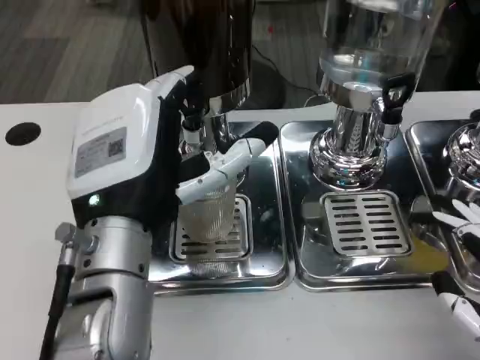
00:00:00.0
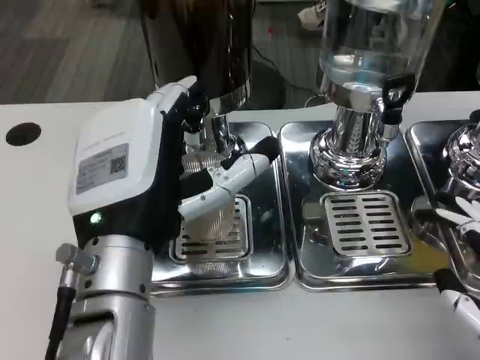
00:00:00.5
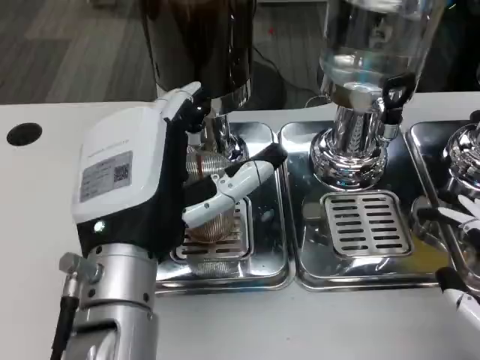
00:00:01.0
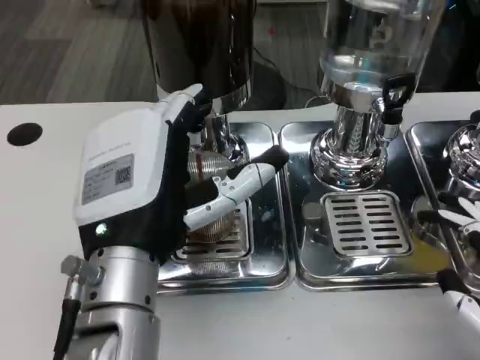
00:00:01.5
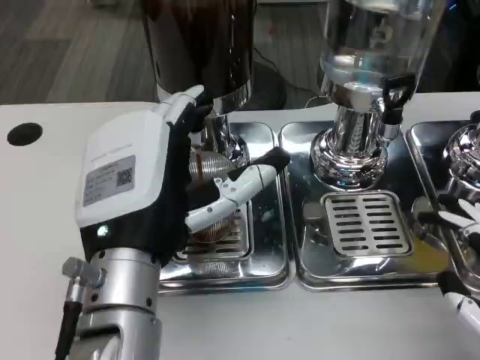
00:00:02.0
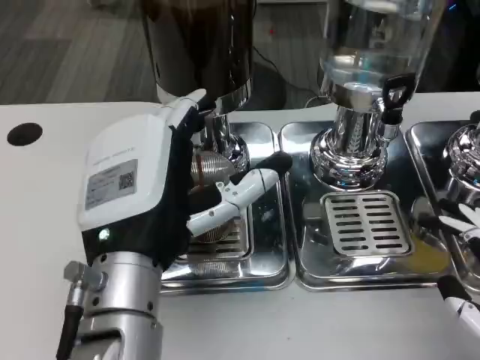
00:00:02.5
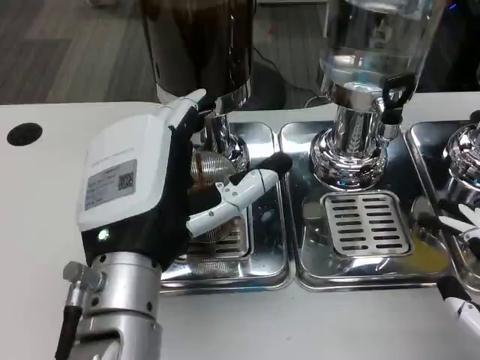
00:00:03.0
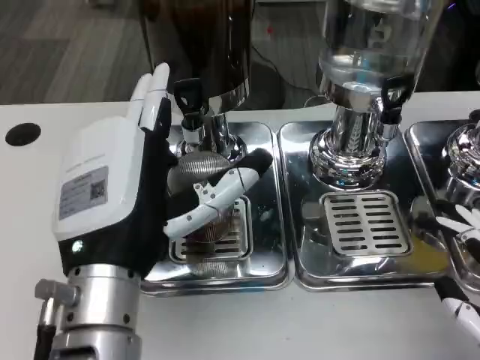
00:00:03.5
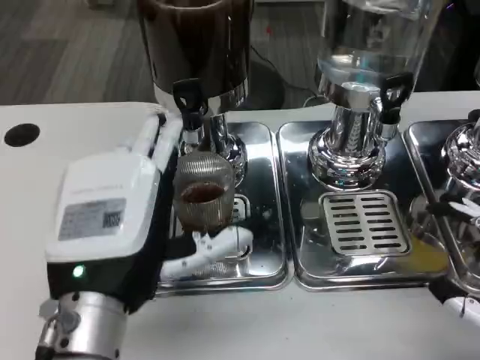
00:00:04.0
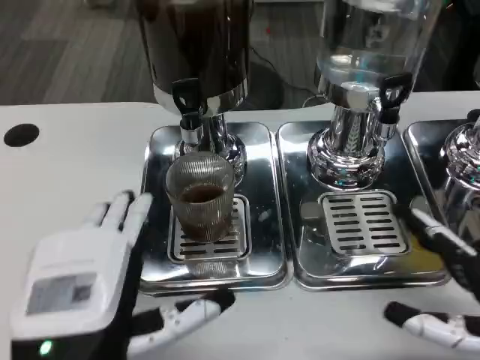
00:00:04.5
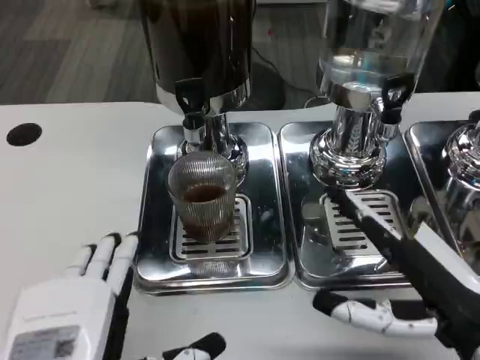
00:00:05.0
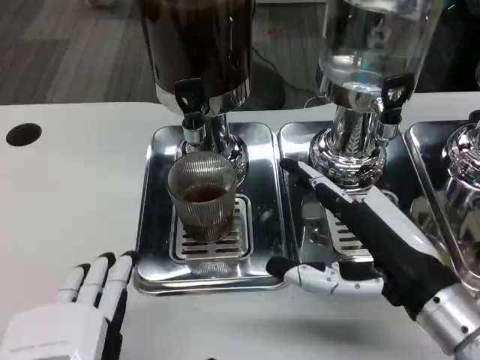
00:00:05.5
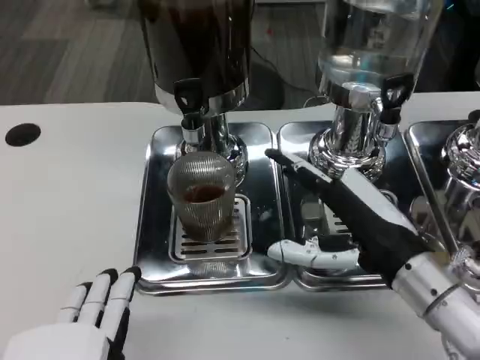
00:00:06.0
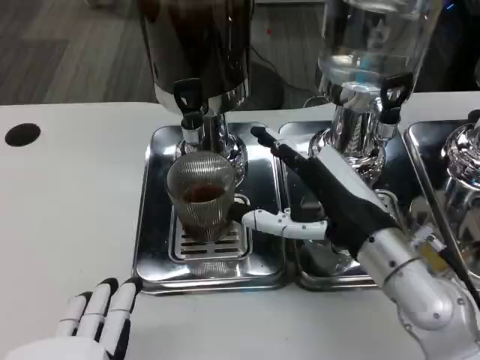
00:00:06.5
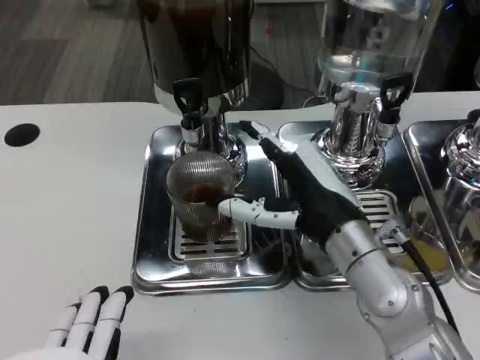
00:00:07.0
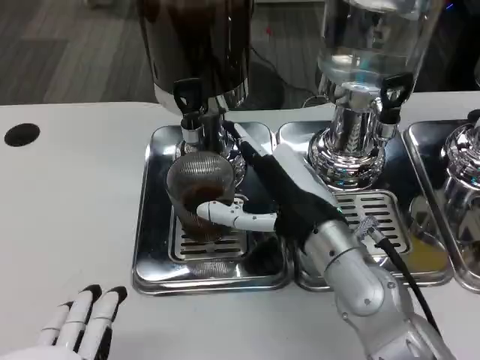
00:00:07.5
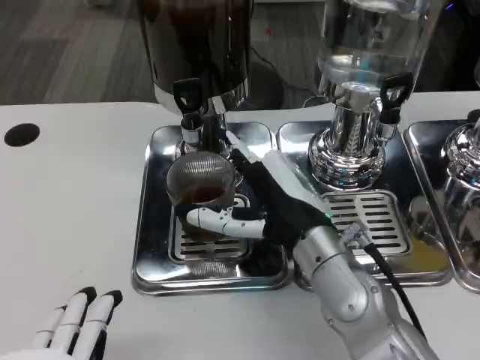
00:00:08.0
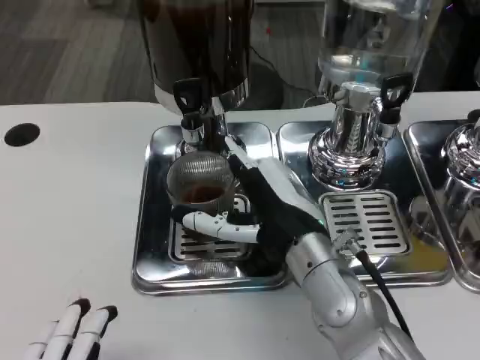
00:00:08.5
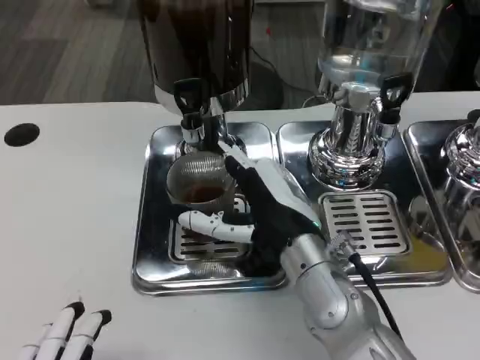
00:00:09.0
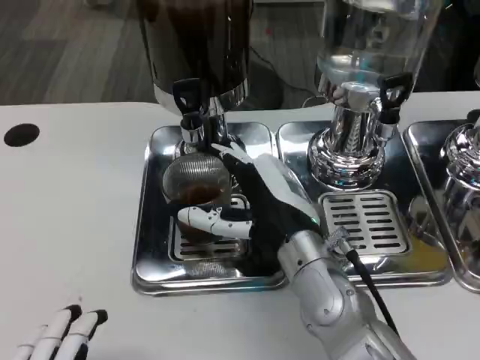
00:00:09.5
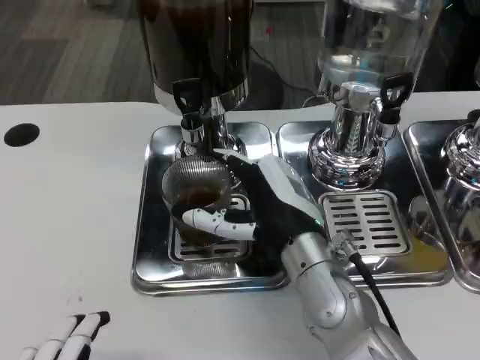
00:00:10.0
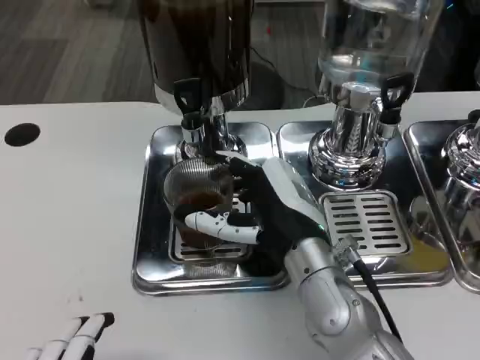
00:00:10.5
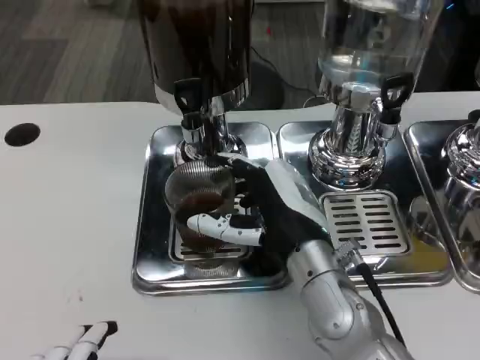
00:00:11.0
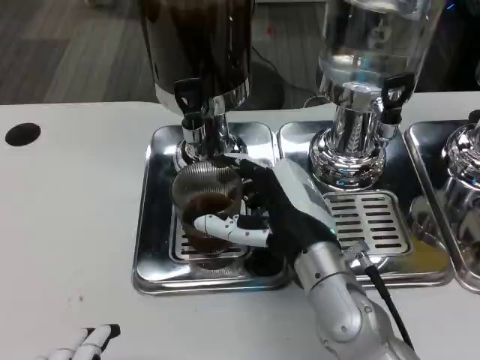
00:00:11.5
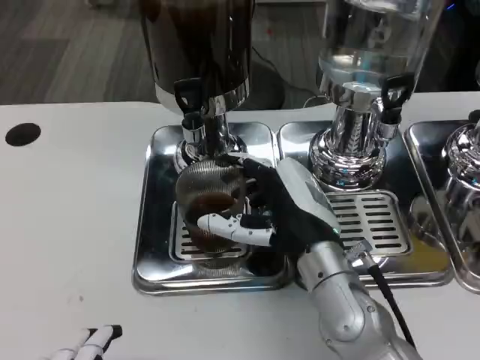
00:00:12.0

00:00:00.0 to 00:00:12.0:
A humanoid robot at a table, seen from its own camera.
Task of the whole recording: Grasp the cup under the faucet to collect the drink, then remove the cup.
00:00:04.0 to 00:00:06.0: The left hand shifts roughly 10 cm backward. Meanwhile the right hand moves to the left and forward, about 15 cm.
00:00:06.0 to 00:00:08.0: The right hand goes about 10 cm to the left.
00:00:08.0 to 00:00:12.0: The hands make only small movements.

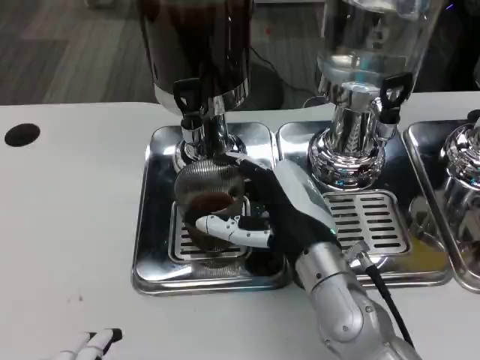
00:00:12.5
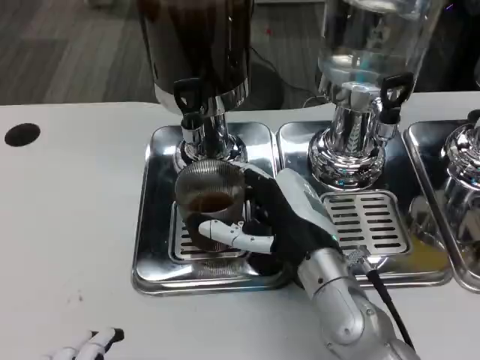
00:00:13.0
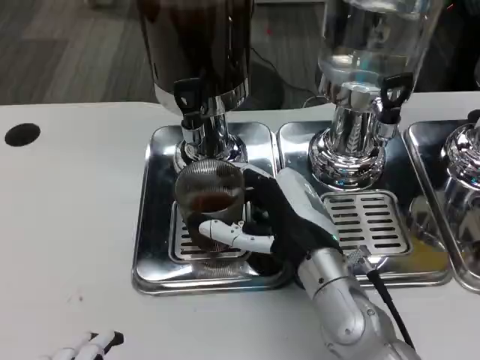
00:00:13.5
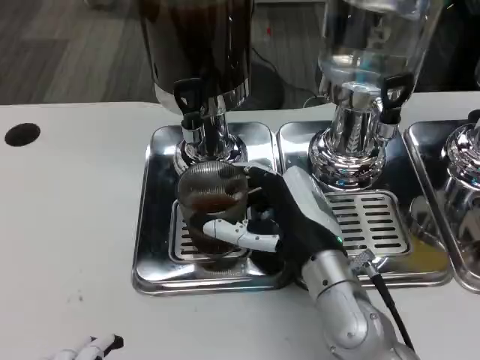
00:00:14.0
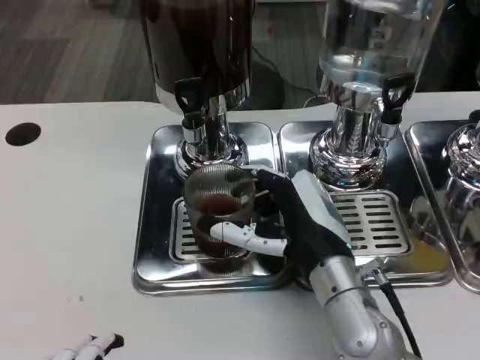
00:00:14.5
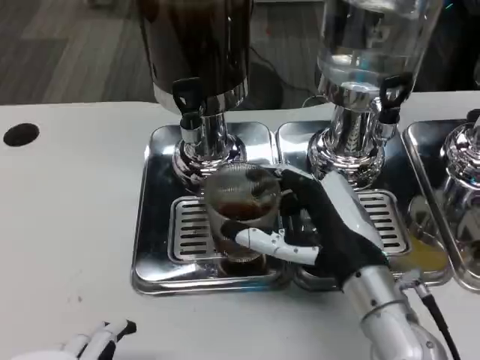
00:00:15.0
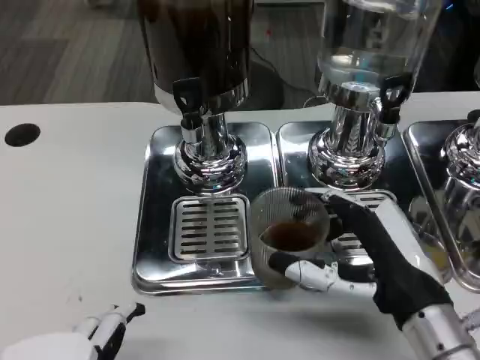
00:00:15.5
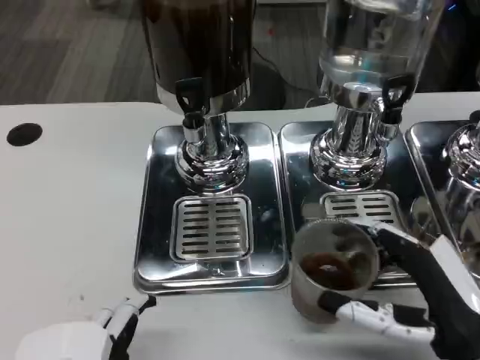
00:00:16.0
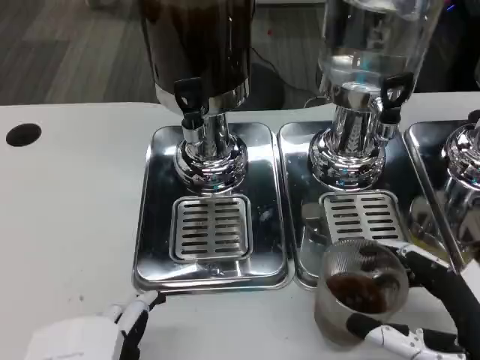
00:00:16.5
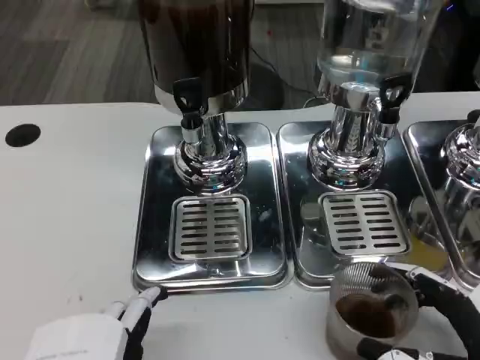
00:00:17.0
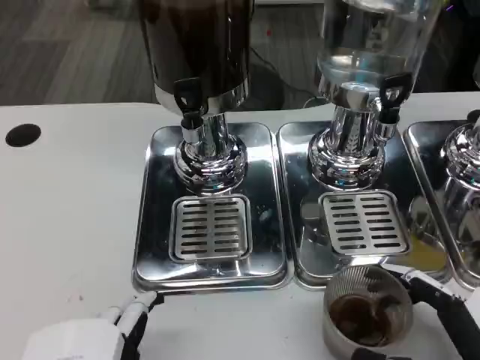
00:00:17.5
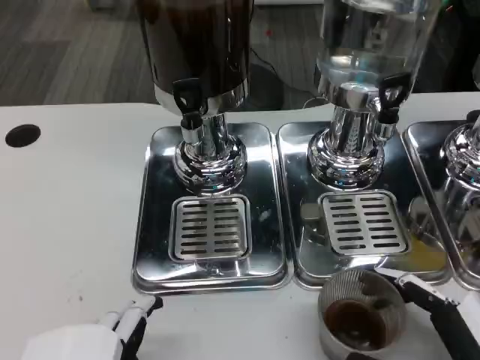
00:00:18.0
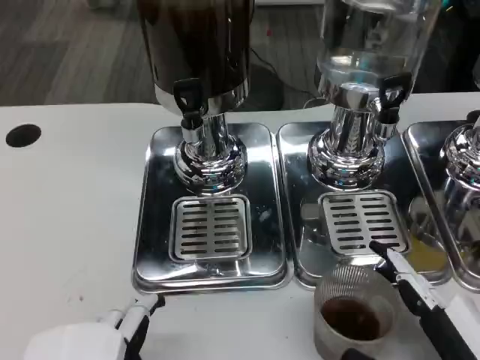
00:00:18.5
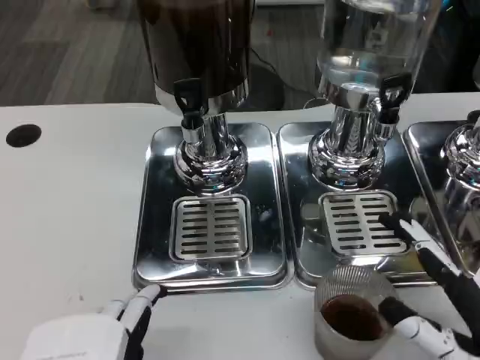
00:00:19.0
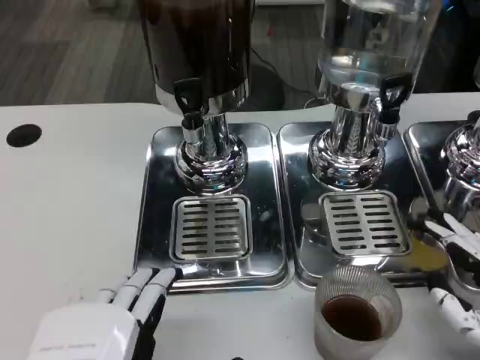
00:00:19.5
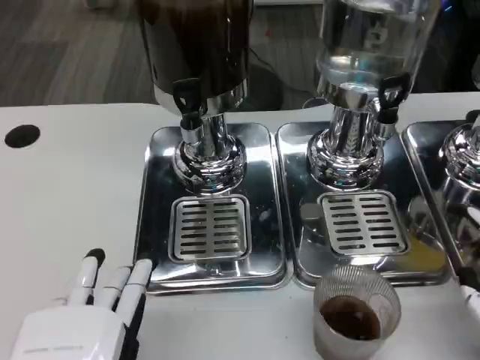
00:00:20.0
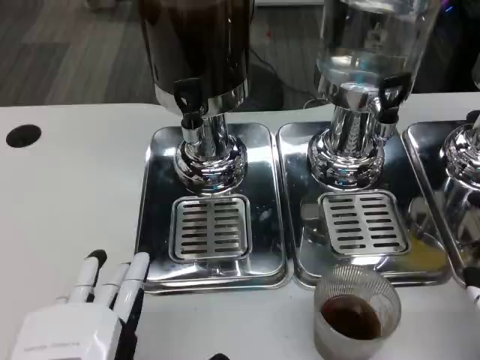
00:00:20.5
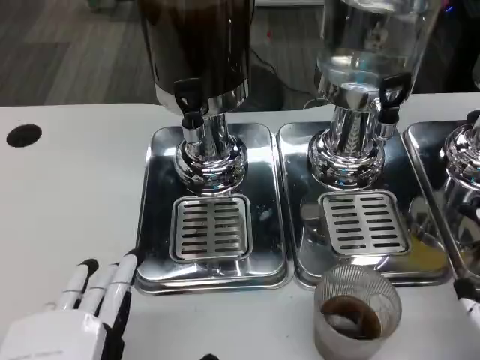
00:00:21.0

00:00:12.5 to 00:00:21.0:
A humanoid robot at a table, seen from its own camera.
Task of the whole recording: Grasp the cup under the faucet to collect the drink, then remove the cup.
00:00:12.5 to 00:00:14.5: The hands stay close to where they were, moving slightly.
00:00:14.5 to 00:00:16.5: The right hand is displaced to the right and backward by roughly 20 cm.
00:00:16.5 to 00:00:19.0: The hands stay close to where they were, moving slightly.

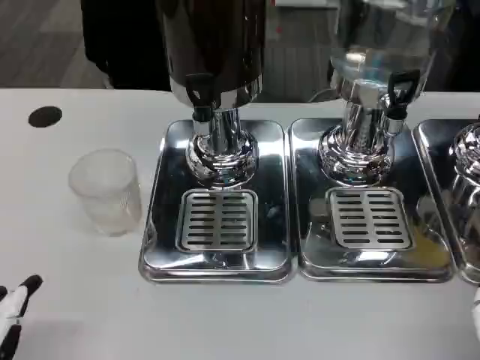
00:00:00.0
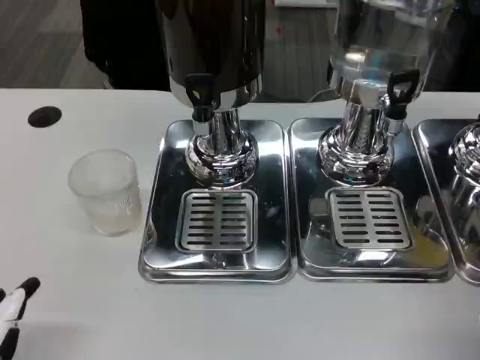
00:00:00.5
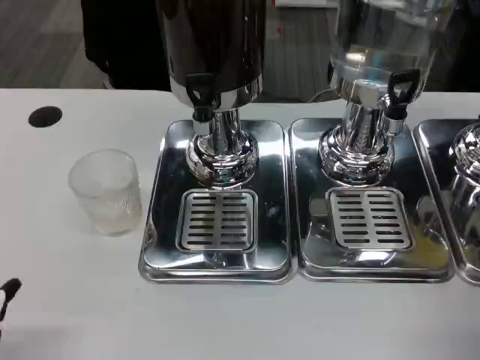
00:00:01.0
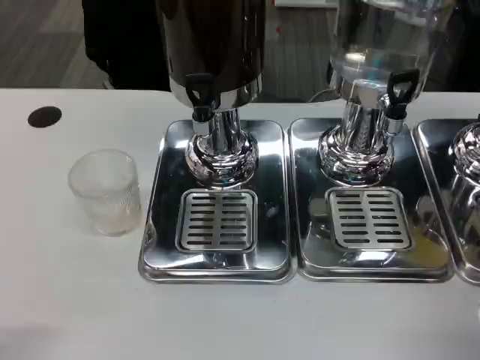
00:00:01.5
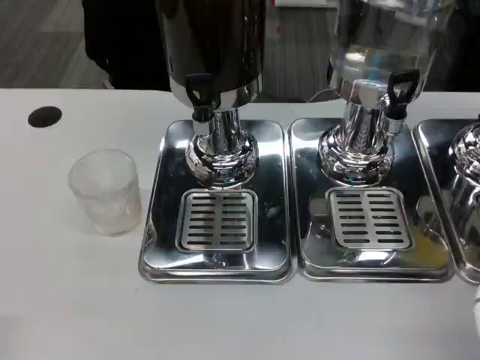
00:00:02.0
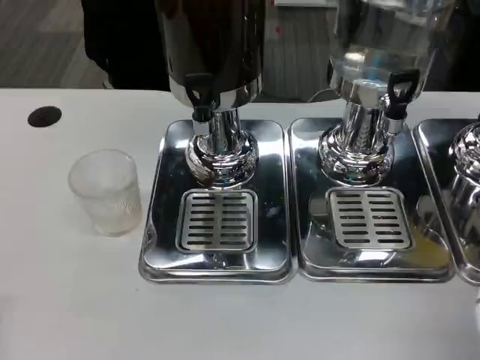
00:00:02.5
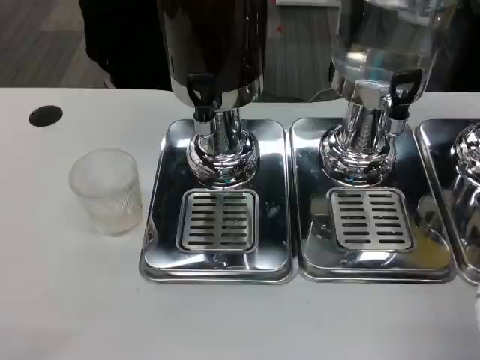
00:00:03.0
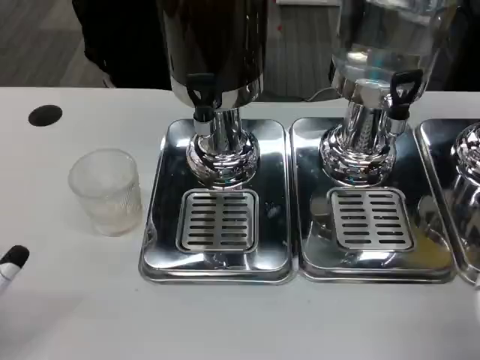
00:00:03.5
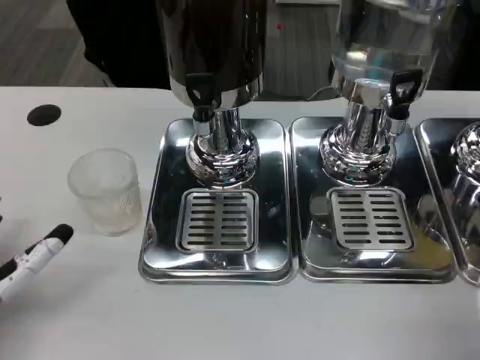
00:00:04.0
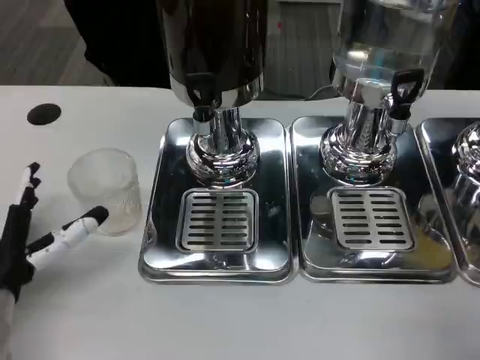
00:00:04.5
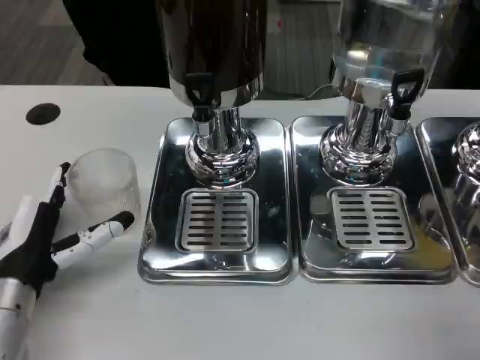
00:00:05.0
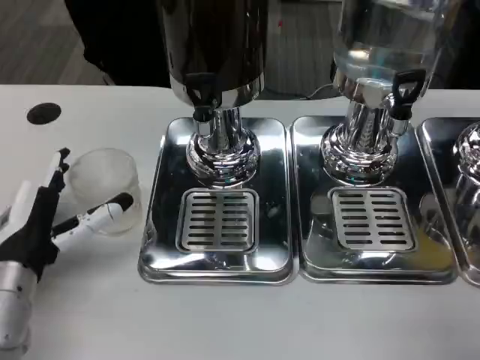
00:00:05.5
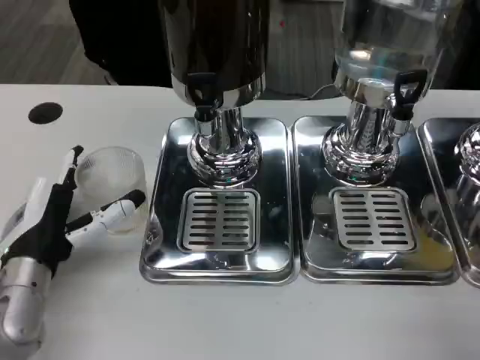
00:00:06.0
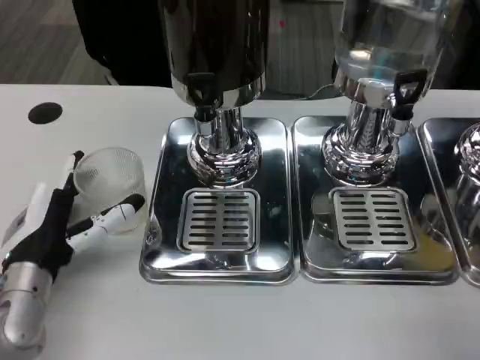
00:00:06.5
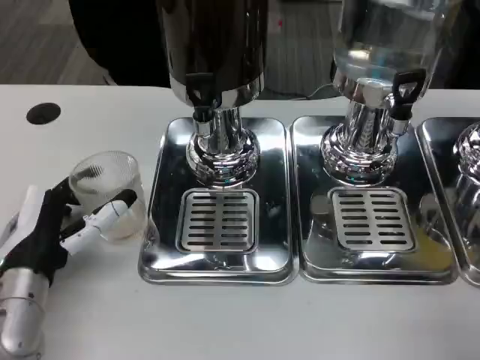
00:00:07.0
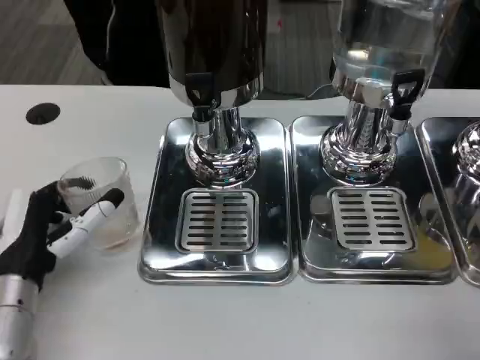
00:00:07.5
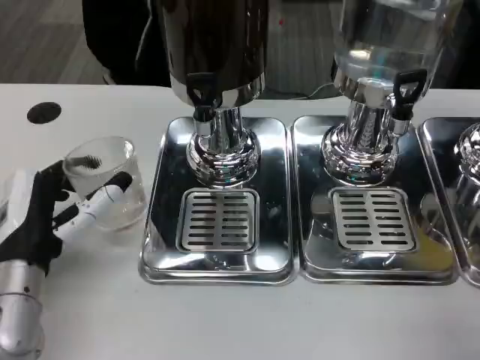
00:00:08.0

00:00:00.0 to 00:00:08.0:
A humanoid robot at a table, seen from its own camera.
Task of the whole recording: Grasp the cup under the faucet to collect the drink, then remove the cup.
00:00:02.0 to 00:00:04.0: The left hand is displaced forward by some 15 cm.
00:00:04.0 to 00:00:06.0: The left hand shifts some 5 cm forward.
00:00:06.0 to 00:00:08.0: The hands make only small movements.
